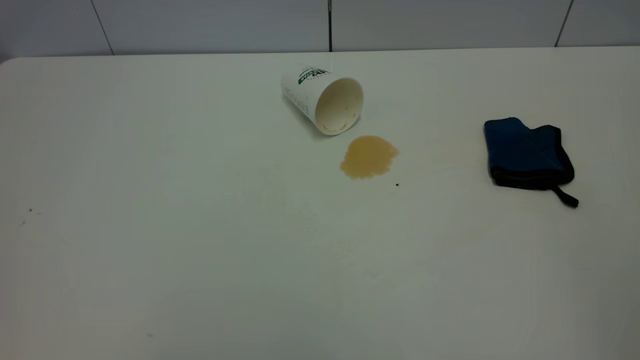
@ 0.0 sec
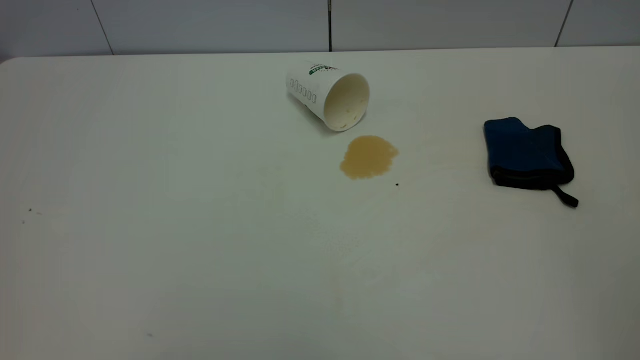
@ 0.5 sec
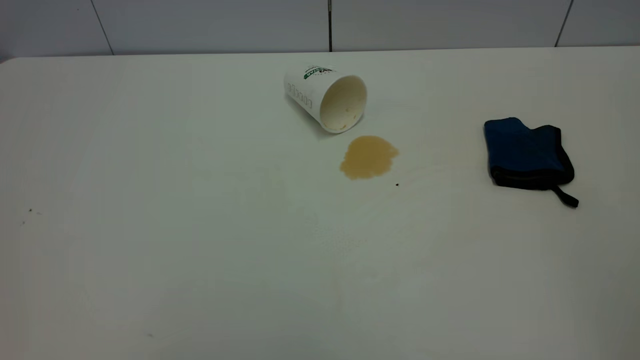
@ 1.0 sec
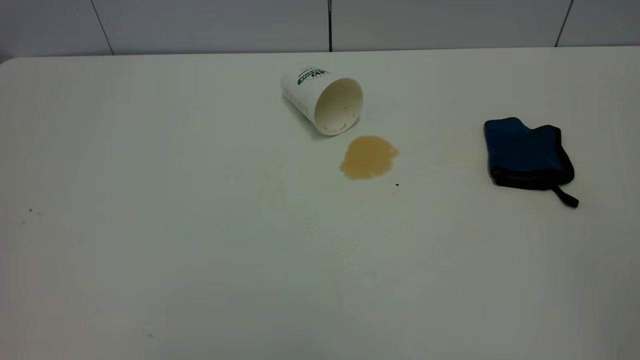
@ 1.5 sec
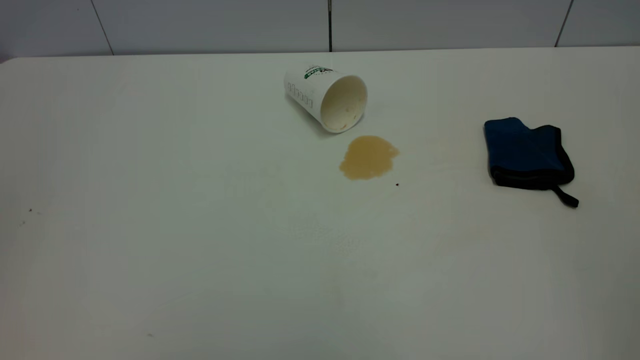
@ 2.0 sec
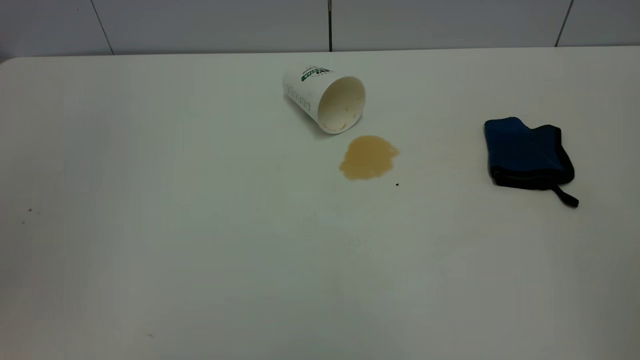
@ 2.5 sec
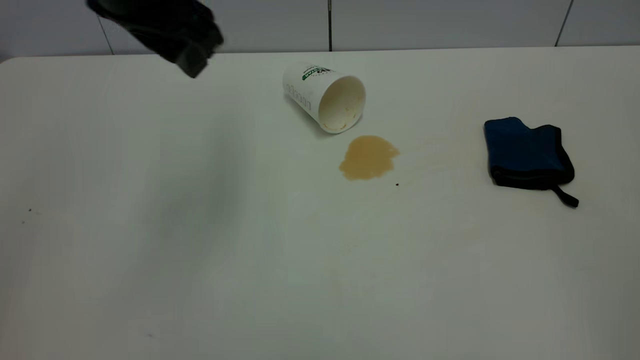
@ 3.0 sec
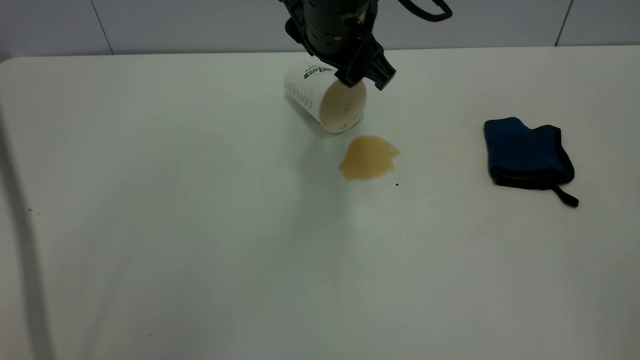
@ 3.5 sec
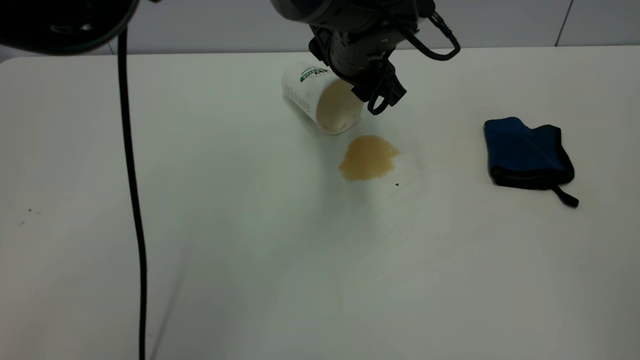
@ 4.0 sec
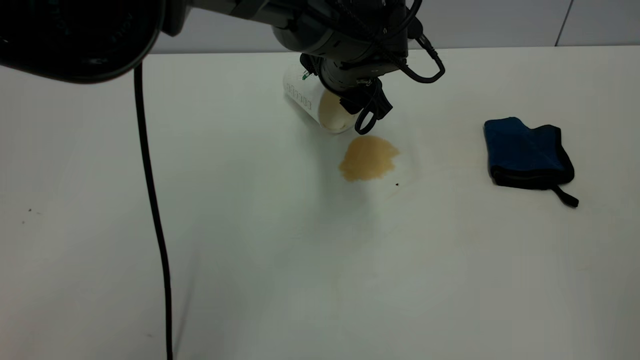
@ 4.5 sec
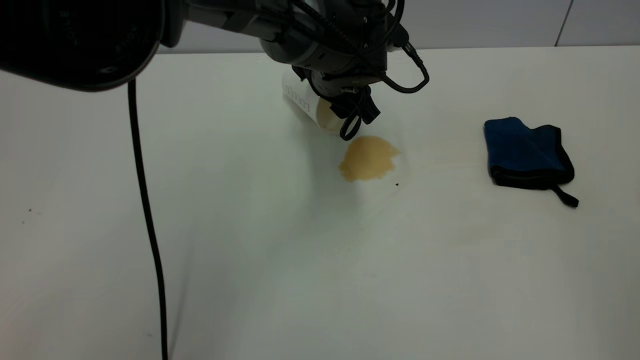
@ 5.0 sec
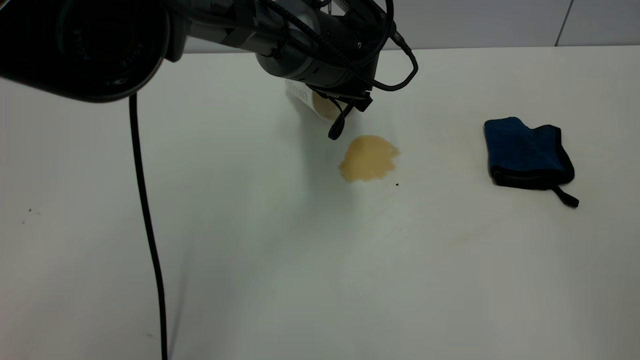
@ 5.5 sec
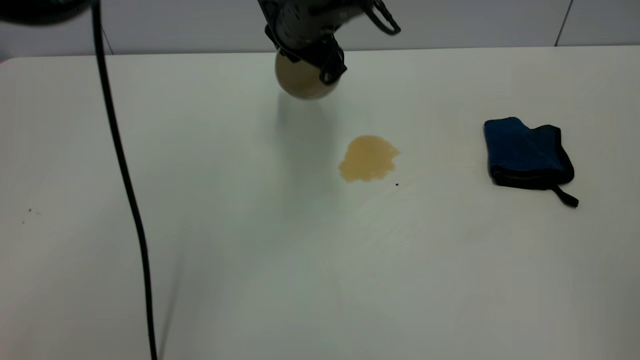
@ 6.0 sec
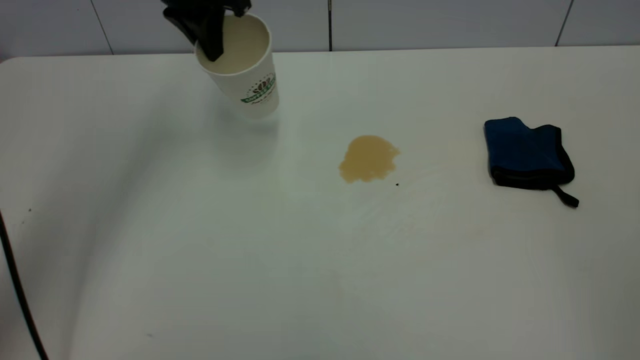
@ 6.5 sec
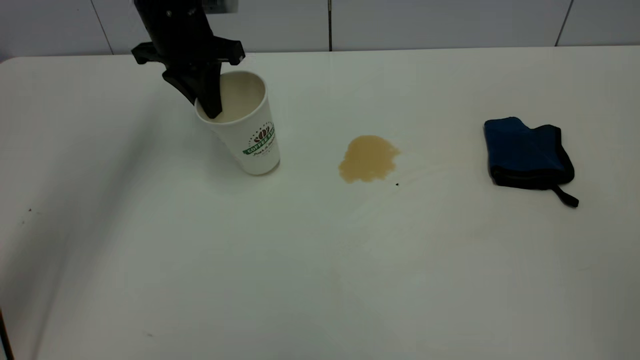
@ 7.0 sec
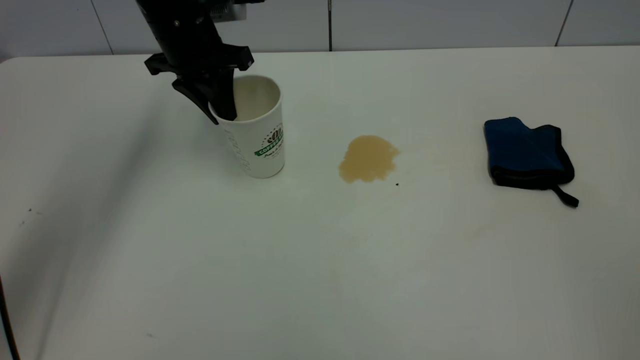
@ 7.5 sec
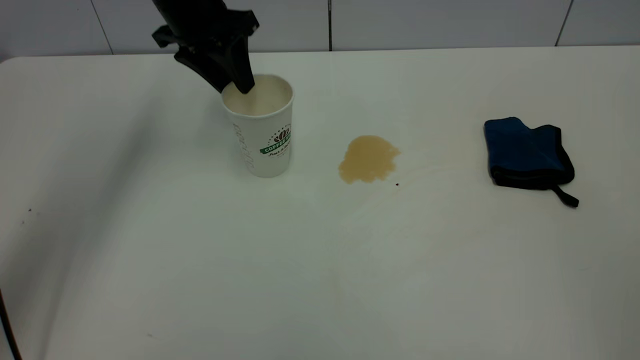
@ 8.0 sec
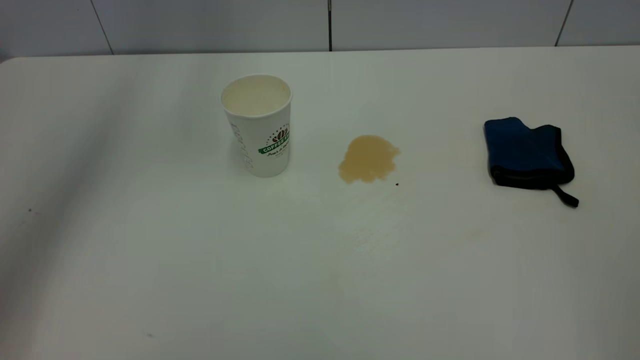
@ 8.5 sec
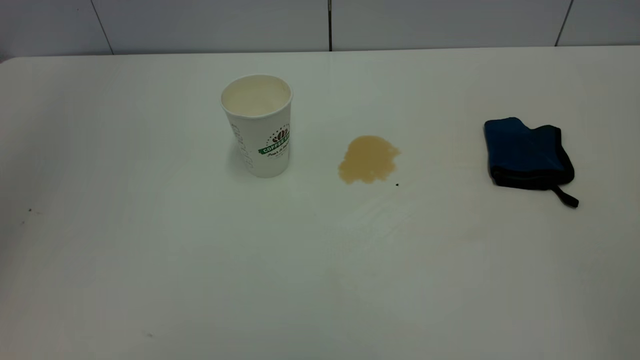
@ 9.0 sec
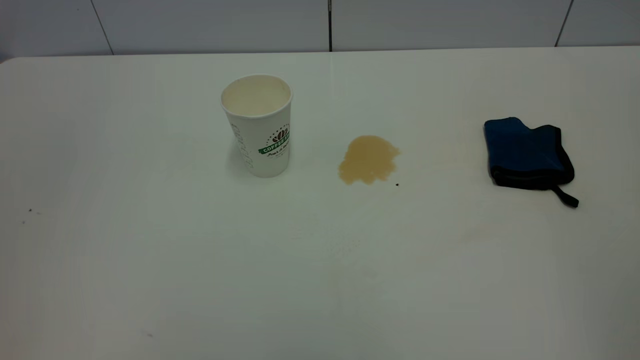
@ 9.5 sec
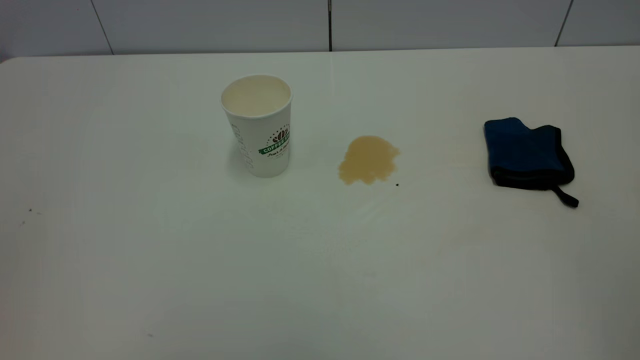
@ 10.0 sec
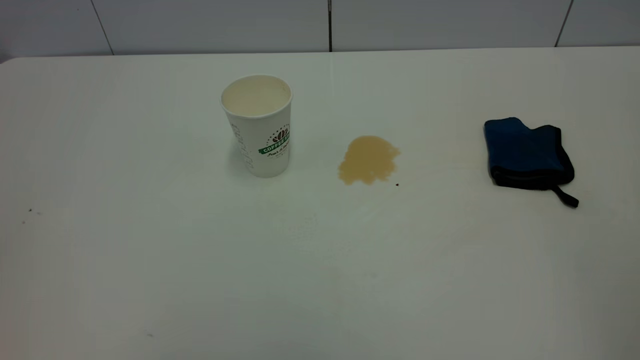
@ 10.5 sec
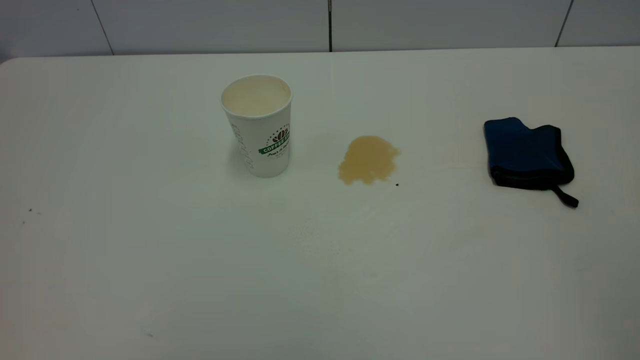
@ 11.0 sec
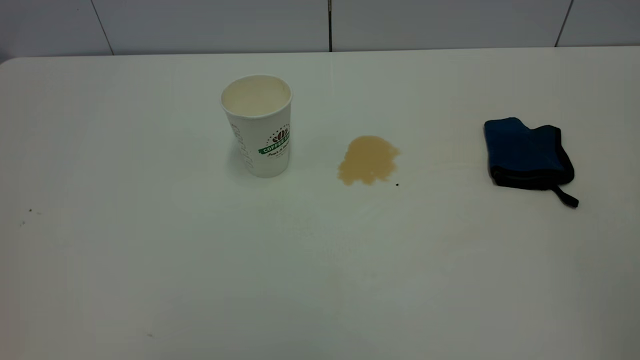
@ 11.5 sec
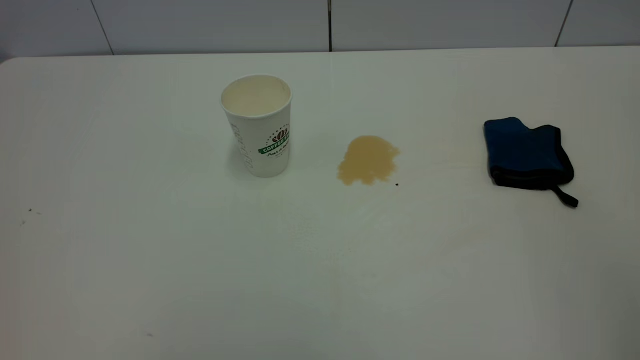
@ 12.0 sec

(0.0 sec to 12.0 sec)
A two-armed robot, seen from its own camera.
Task of the whole recording: the left gripper pick up the fallen cup and place it upright, the right gripper grasp the blue rag and wipe the tea stain on the table, the right gripper put the blue rag back in its original position.
Step, 0.0 sec - 8.0 sec: Stand the paper cup upright.
2.0 sec - 4.0 sec: The left gripper travels to the right, forward and downward by approximately 60 cm.
4.0 sec - 6.0 sec: The left gripper moves to the left, some 5 cm, and closes its fingers.
6.0 sec - 8.0 sec: The left gripper moves to the left, some 15 cm, and opens.
8.0 sec - 10.0 sec: The left gripper moves backward, roughly 40 cm.

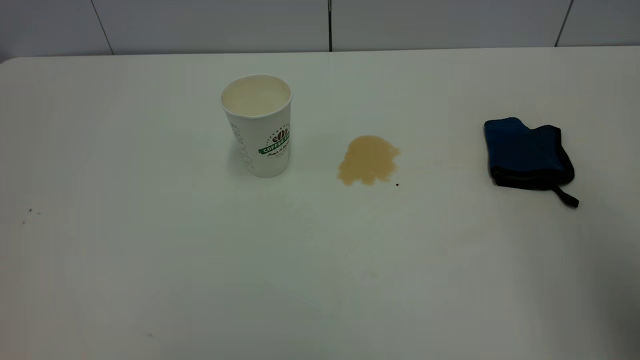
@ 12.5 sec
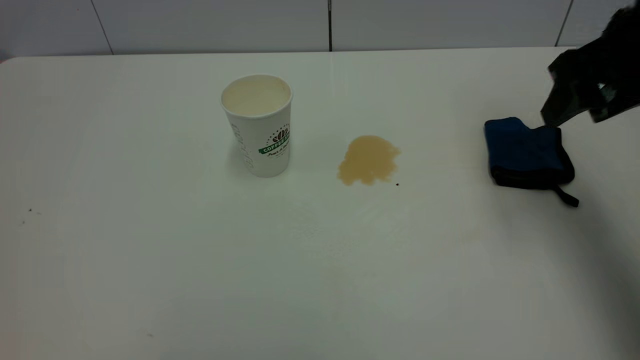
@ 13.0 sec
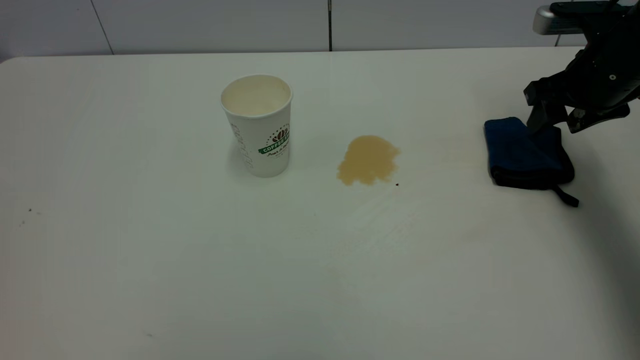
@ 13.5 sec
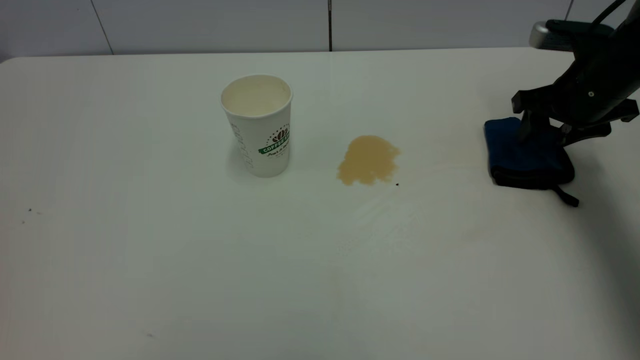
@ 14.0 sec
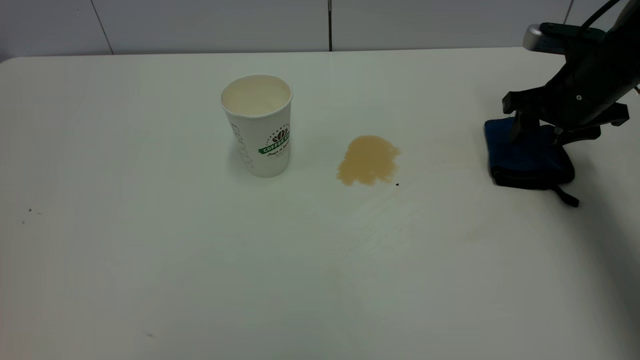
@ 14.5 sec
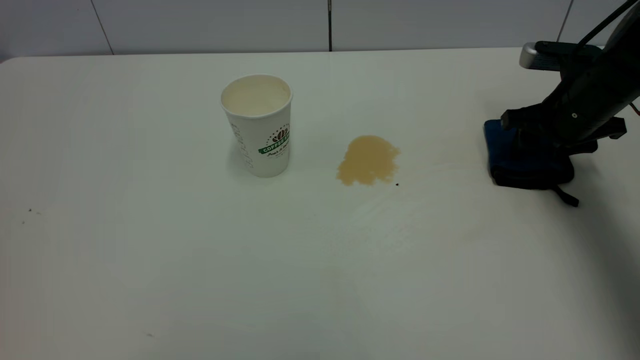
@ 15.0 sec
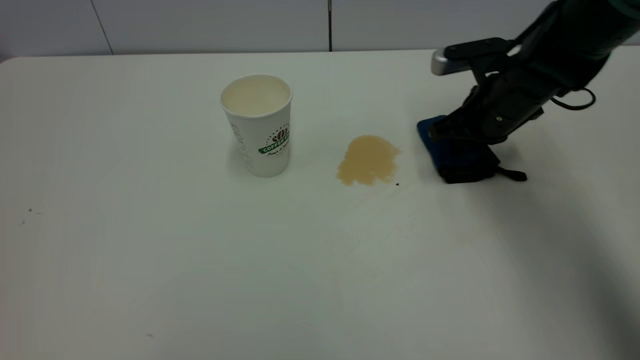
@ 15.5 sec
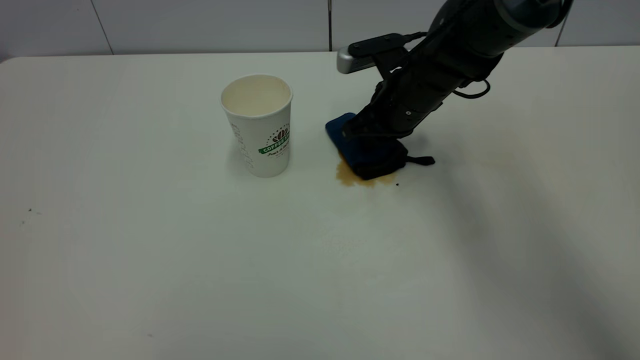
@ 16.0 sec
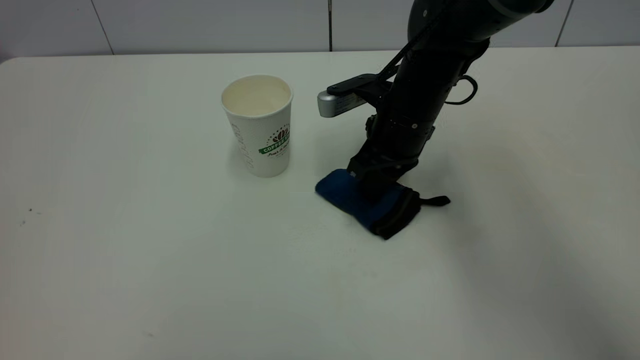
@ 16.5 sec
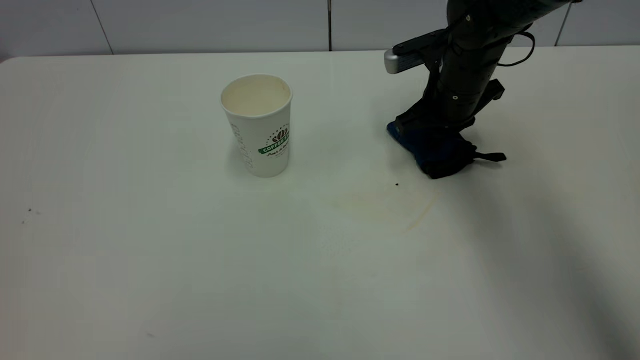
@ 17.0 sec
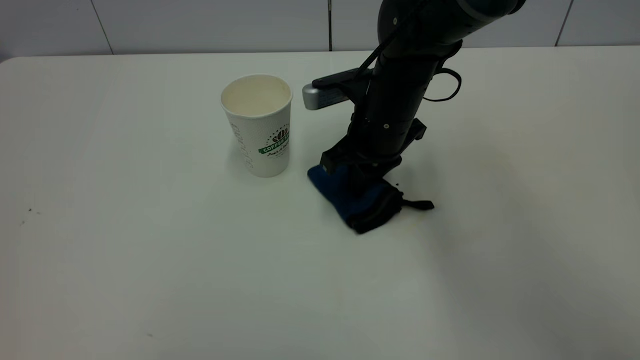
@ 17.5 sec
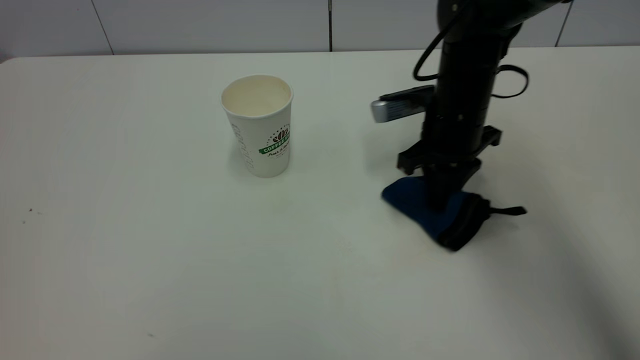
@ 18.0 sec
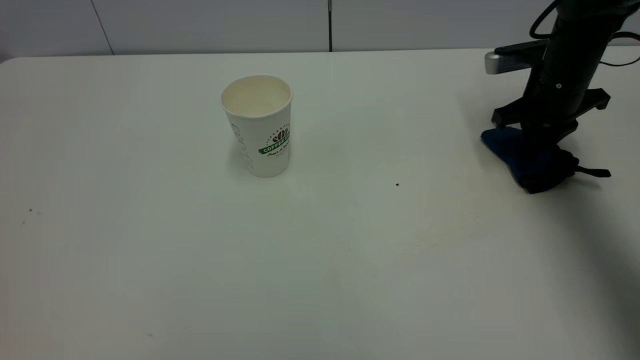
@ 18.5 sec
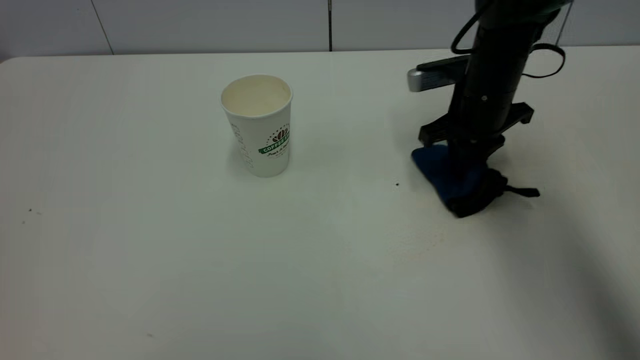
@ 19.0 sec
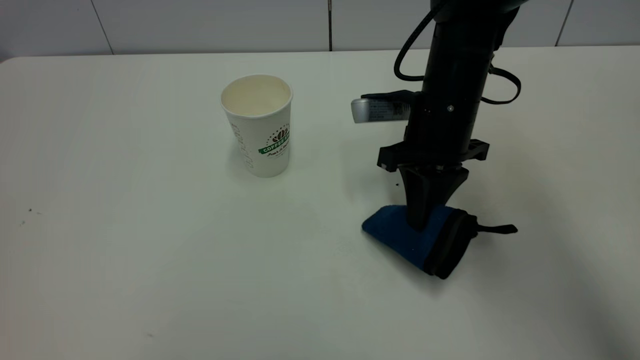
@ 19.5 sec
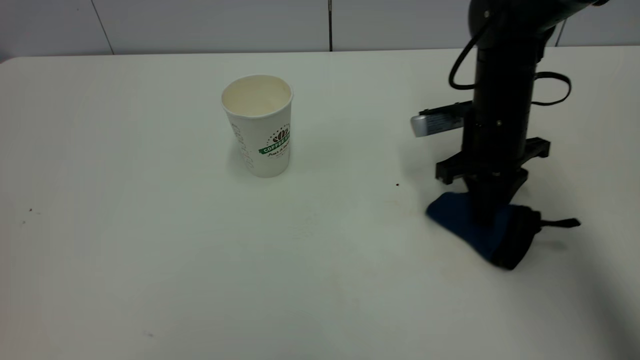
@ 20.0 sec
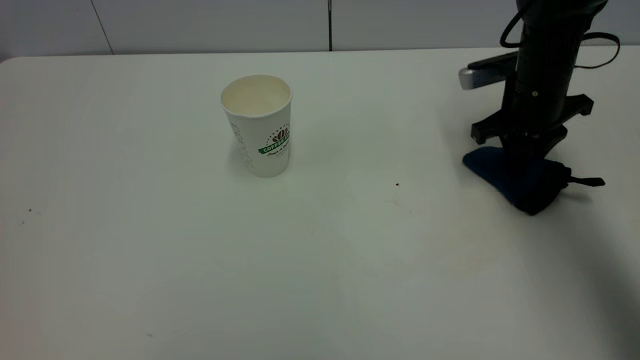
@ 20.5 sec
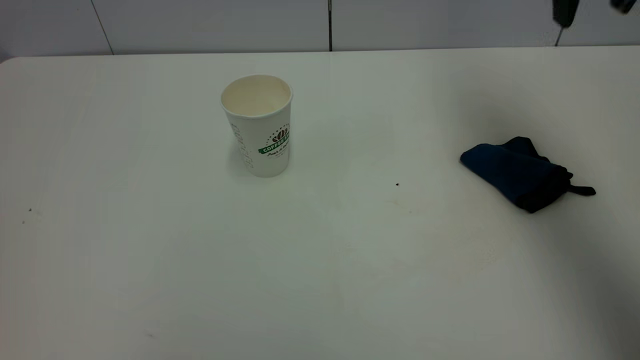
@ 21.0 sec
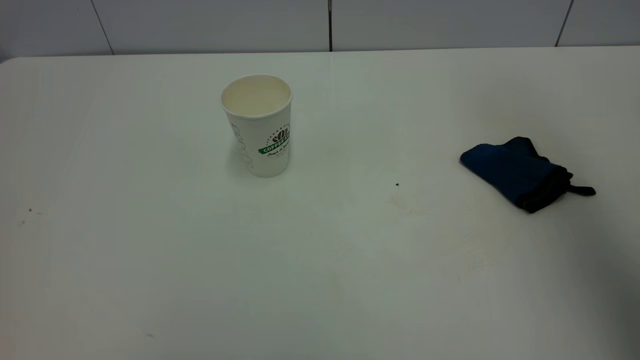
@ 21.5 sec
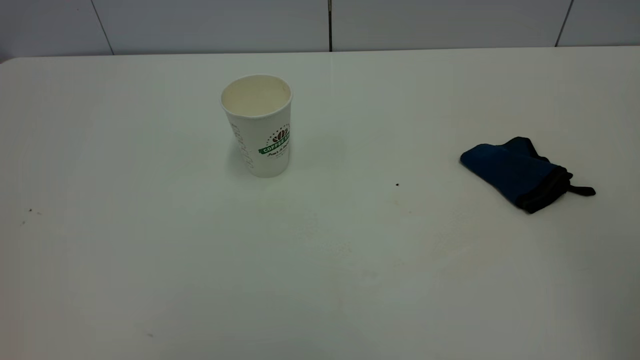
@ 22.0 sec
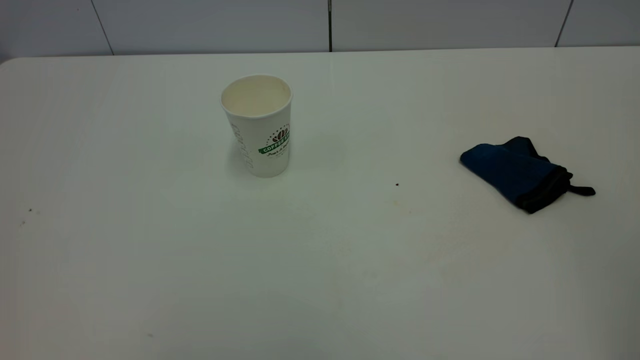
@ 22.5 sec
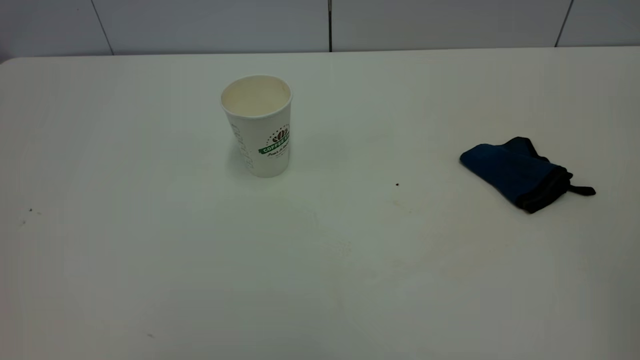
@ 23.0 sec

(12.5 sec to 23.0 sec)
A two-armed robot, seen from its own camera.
Task of the whole recording: the left gripper pick up the fallen cup and place it upright, the right gripper grasp the blue rag and wipe the tea stain on the table, the right gripper put the blue rag back in its original position.
Step, 12.5 sec - 20.5 sec: Wipe the stains off the table with a rag.
12.5 sec - 14.5 sec: The right gripper moves forward and downward, approximately 35 cm.
14.5 sec - 16.5 sec: The right gripper travels to the left by about 20 cm, and closes up.
16.5 sec - 19.0 sec: The right gripper goes left and right, roughly 20 cm each way, reversing 3 times.
19.0 sec - 21.0 sec: The right gripper travels upward by approximately 25 cm, and opens its fingers.
21.0 sec - 23.0 sec: The right gripper shifts some 40 cm backward.
